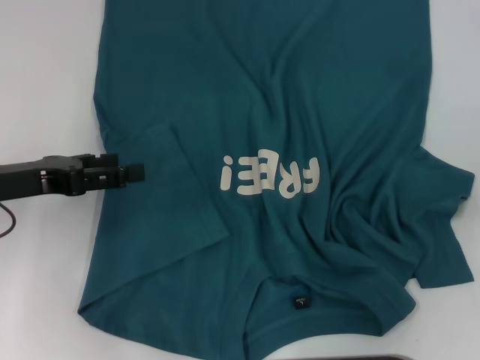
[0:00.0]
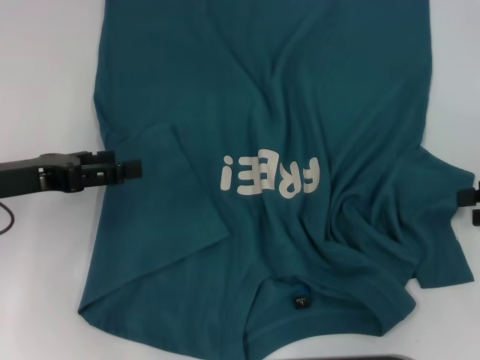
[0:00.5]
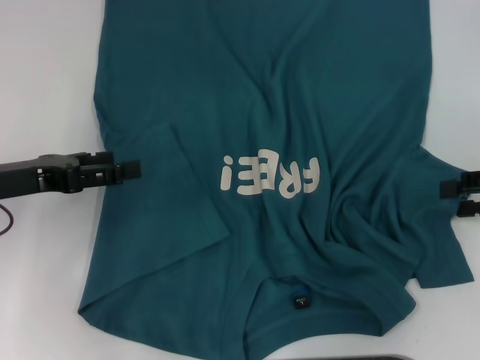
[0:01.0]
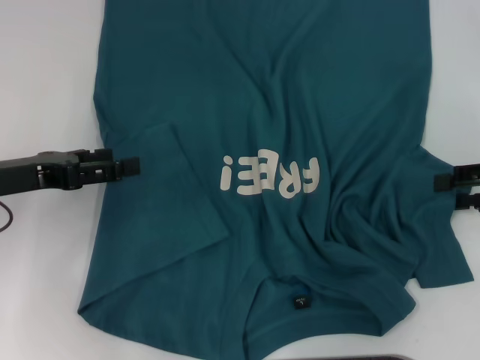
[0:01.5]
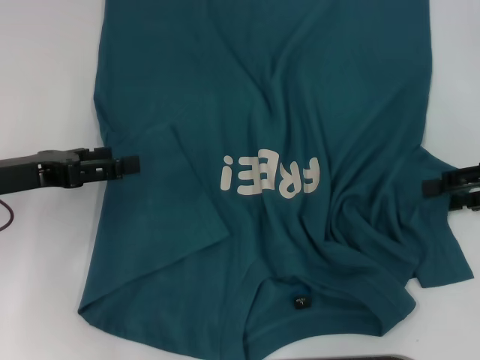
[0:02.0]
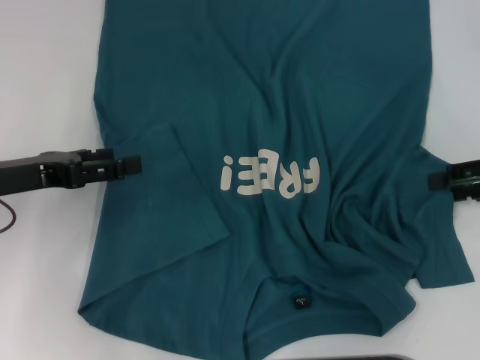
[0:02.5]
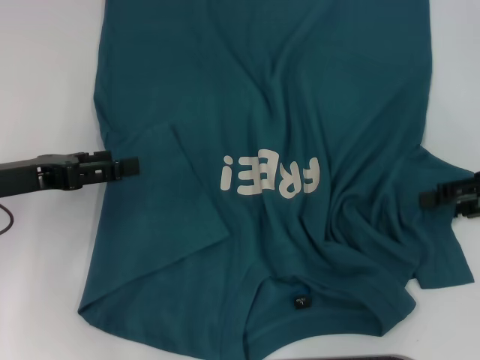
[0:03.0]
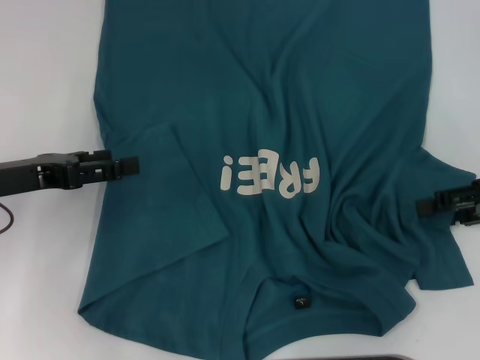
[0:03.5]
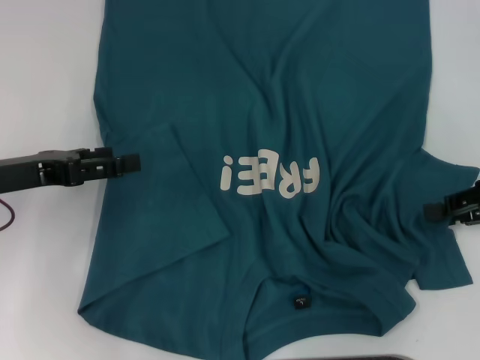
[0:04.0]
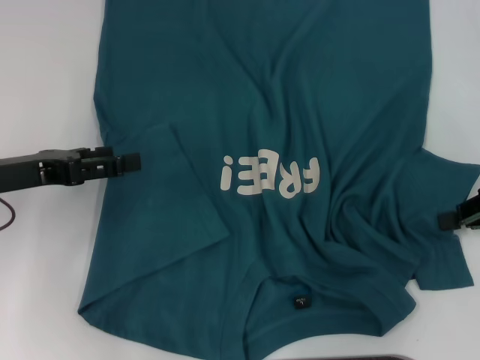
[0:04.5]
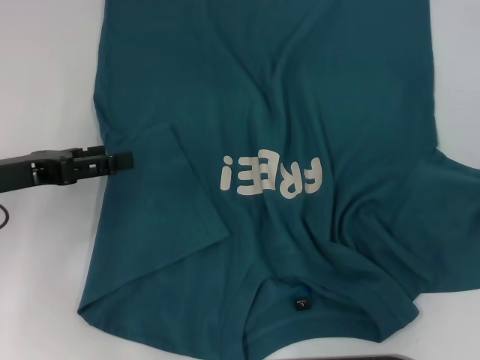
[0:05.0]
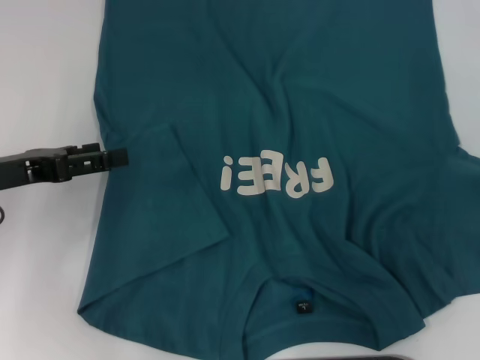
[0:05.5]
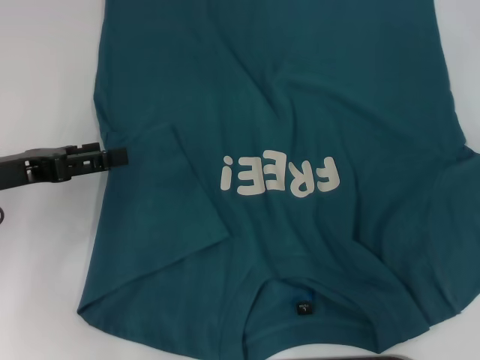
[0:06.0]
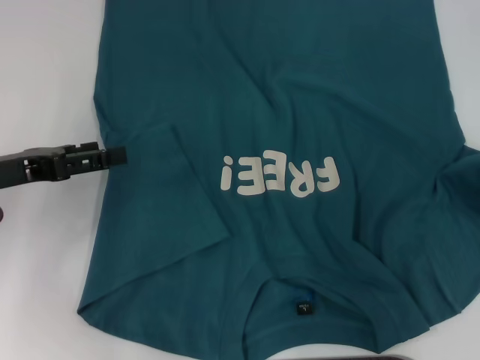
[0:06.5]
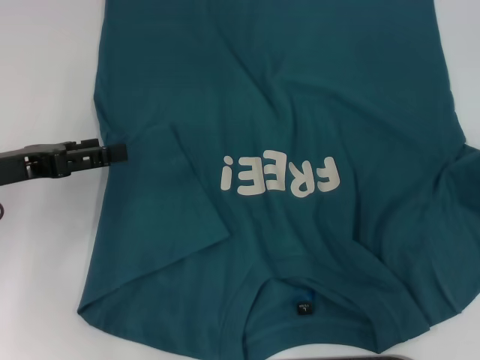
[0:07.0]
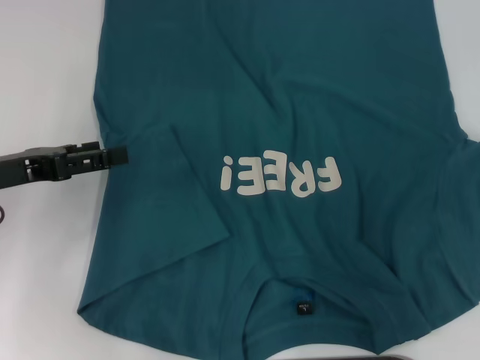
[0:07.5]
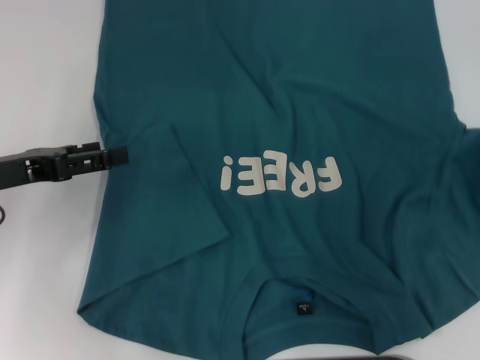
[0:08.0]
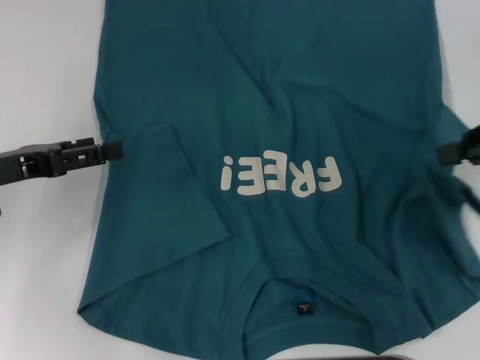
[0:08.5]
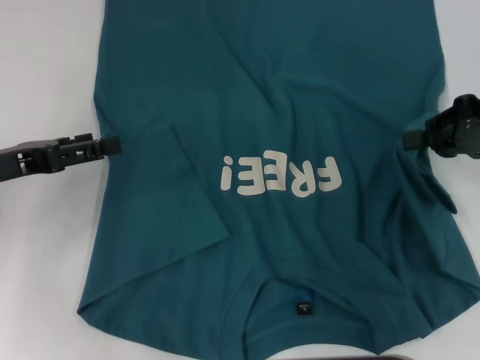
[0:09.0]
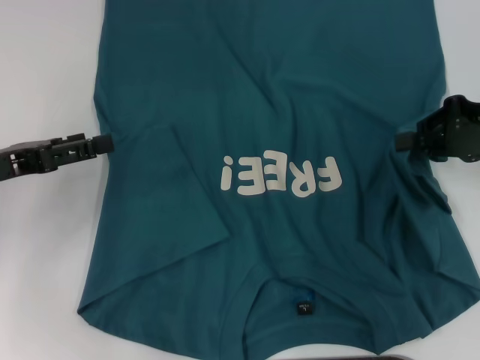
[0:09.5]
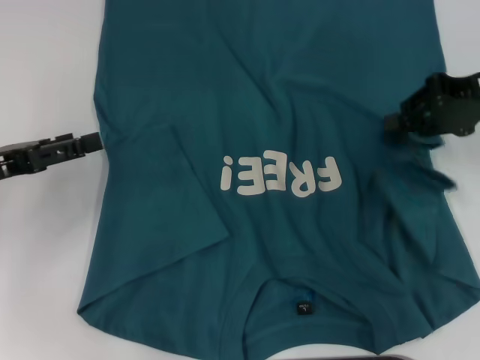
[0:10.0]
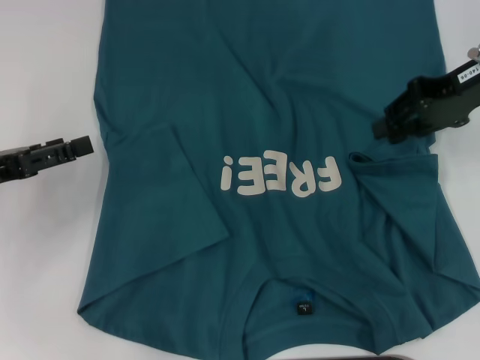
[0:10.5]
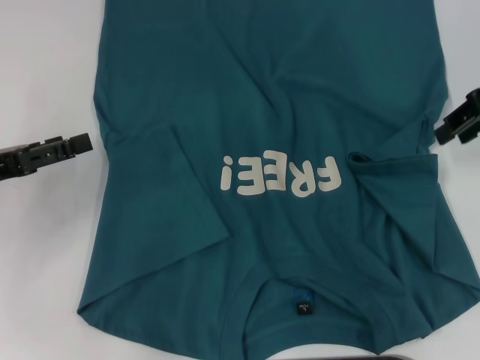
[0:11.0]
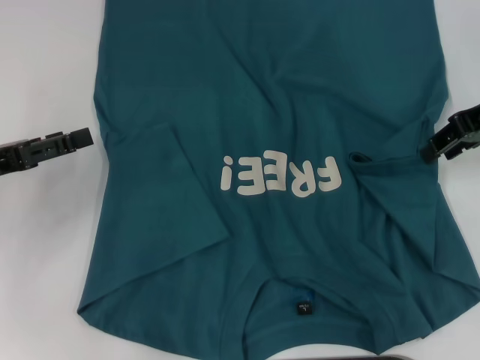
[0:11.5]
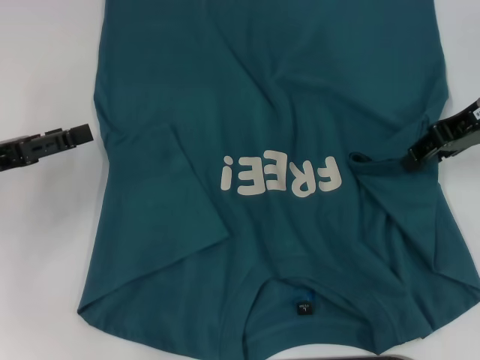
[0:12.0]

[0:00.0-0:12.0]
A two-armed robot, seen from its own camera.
0:00.0 to 0:02.0: The right gripper shifts by some 5 cm.
0:02.0 to 0:04.0: The two grippers keep their place.
0:04.0 to 0:06.0: The right gripper travels to the right and upward by roughly 10 cm, and closes.
0:06.0 to 0:08.0: The grippers make only small movements.
0:08.0 to 0:10.0: The right gripper travels to the left by some 10 cm.
0:10.0 to 0:12.0: The right gripper opens up.

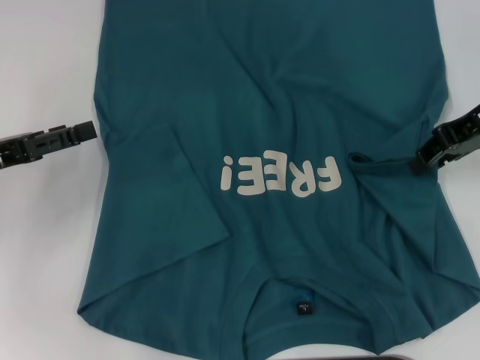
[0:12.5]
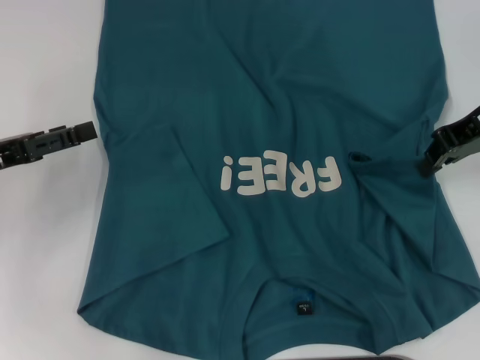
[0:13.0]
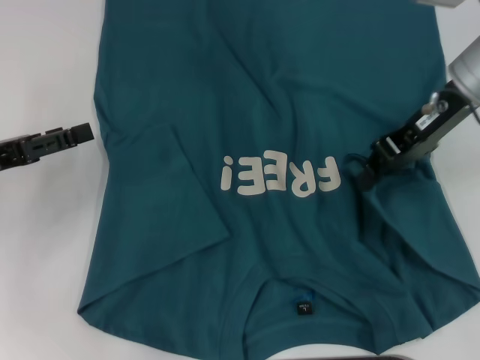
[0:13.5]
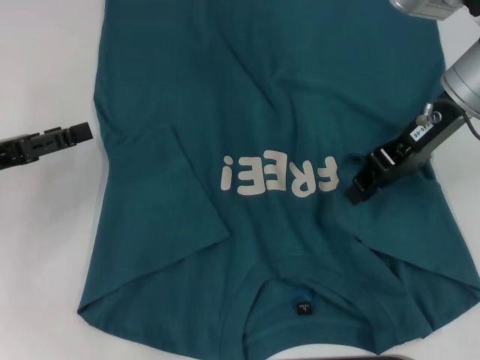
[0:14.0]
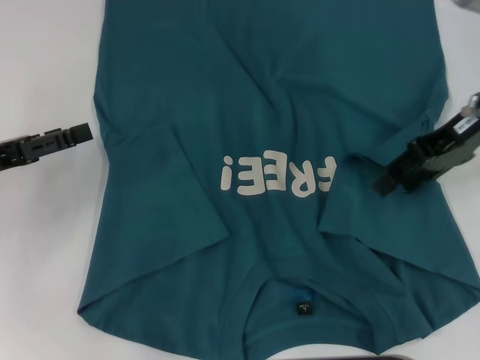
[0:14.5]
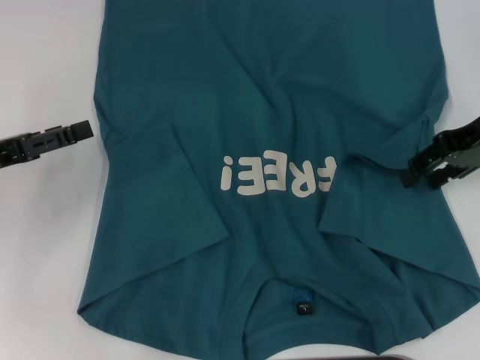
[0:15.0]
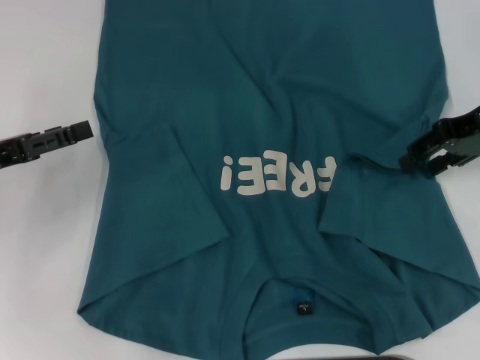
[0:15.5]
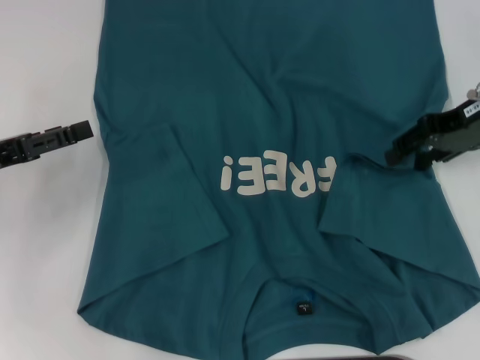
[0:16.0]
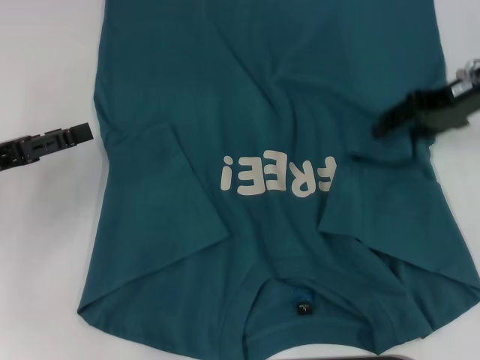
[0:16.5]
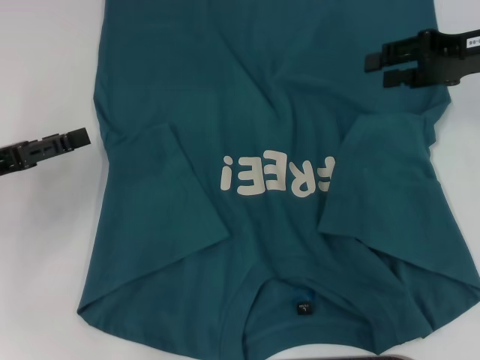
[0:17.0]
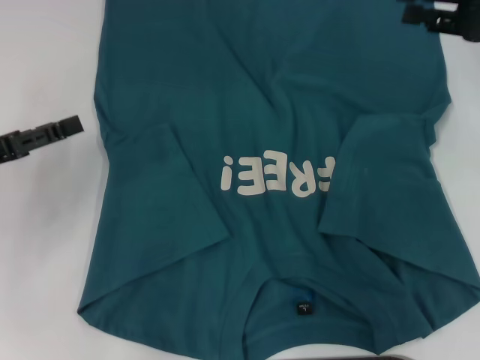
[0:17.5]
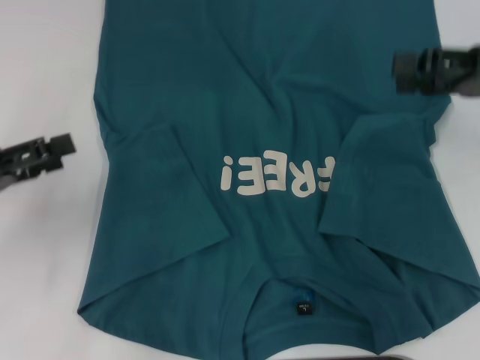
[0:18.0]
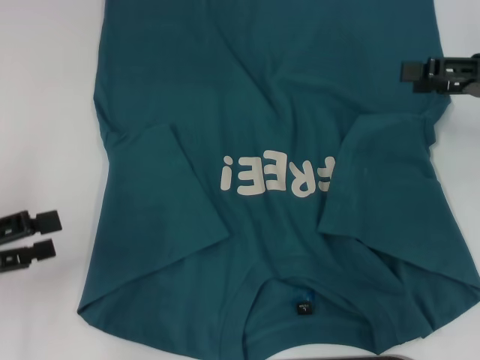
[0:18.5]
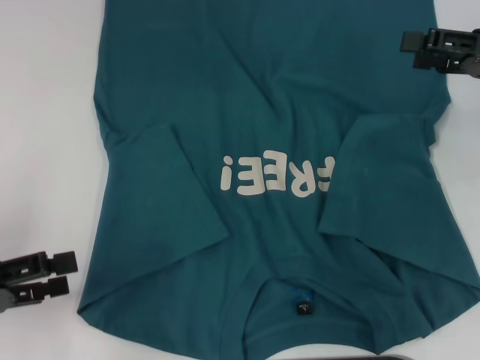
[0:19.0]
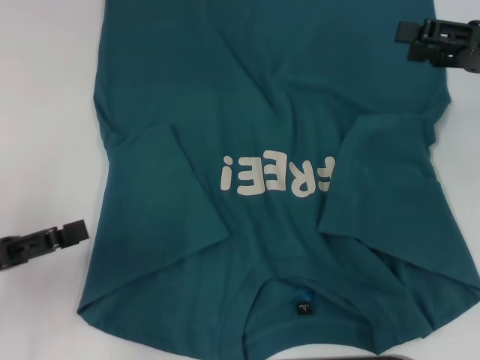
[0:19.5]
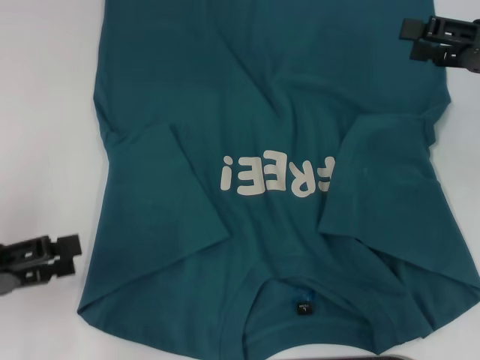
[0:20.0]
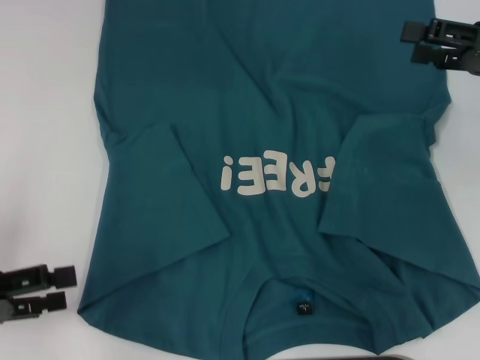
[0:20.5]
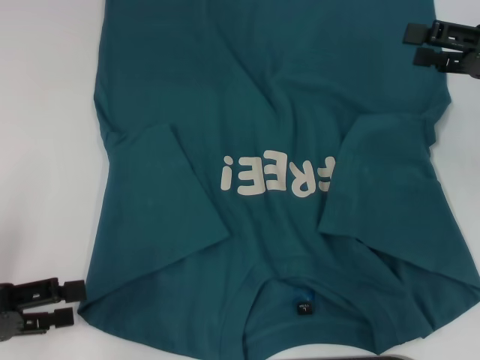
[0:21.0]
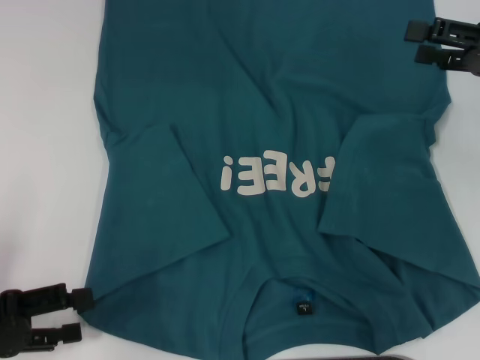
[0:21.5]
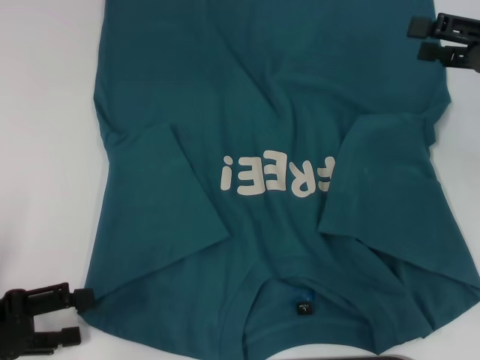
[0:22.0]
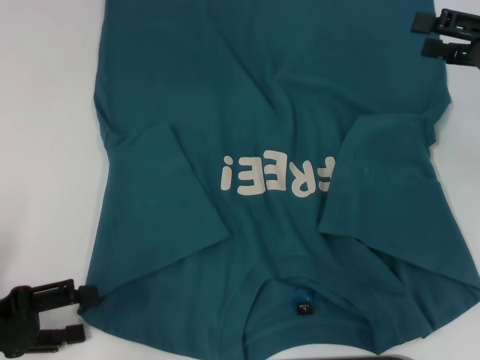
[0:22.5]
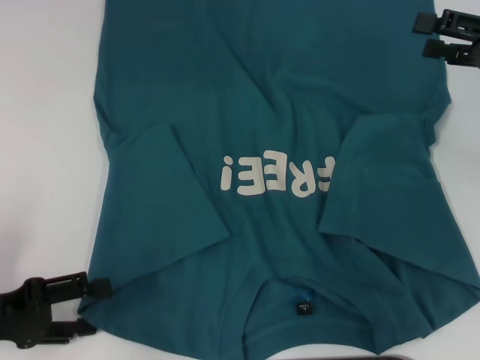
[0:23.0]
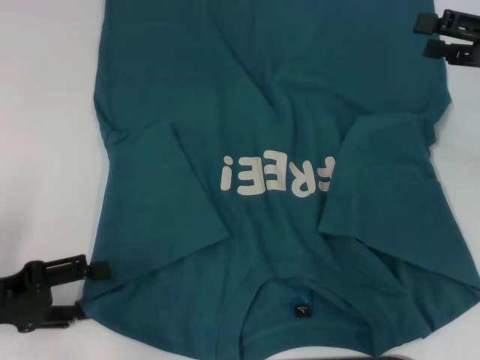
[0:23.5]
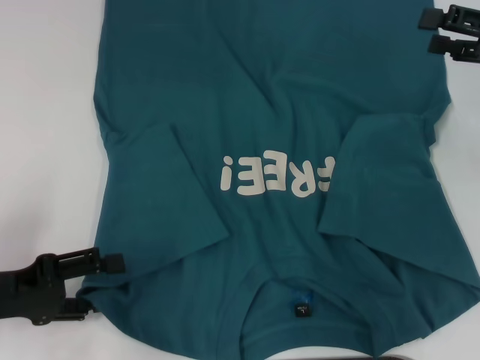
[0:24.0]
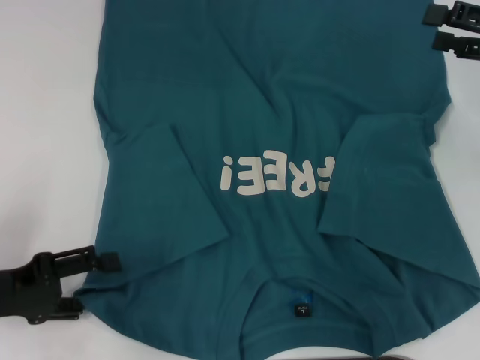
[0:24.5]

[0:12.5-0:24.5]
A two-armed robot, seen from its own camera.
Step, 0:12.5 to 0:16.5: Fold the bottom right sleeve to the right.
0:12.5 to 0:14.5: The right gripper closes, then reopens.
0:14.5 to 0:16.5: The grippers stay close to where they were, moving slightly.
0:16.5 to 0:18.5: The left gripper heads backward, covering roughly 10 cm, while the right gripper travels to the right and backward by about 10 cm.
0:18.5 to 0:20.5: The grippers stay close to where they were, moving slightly.
0:20.5 to 0:24.5: The grippers move only a little.

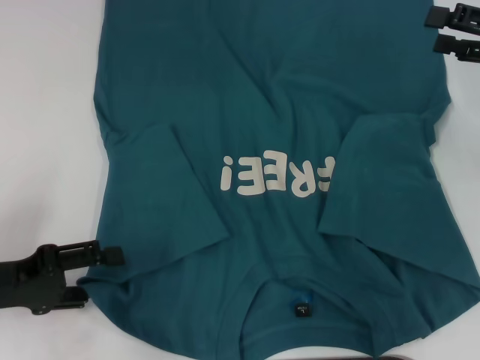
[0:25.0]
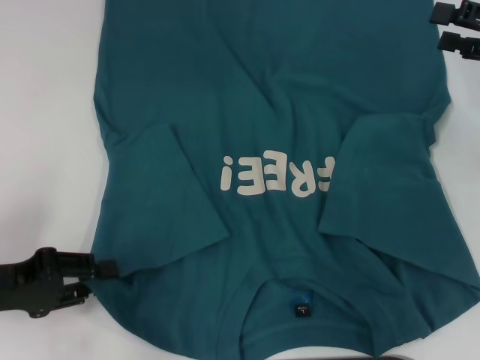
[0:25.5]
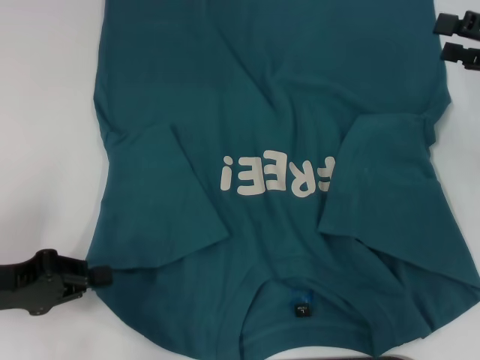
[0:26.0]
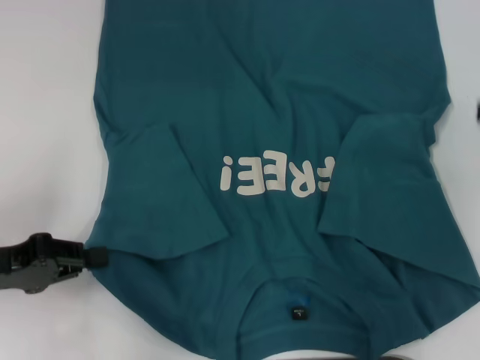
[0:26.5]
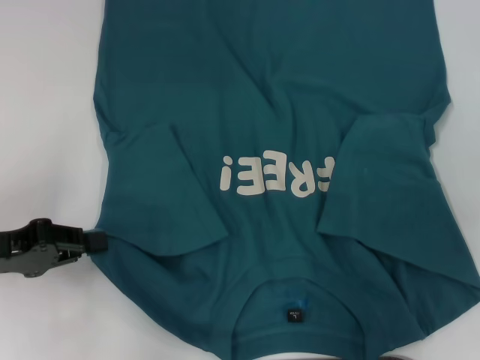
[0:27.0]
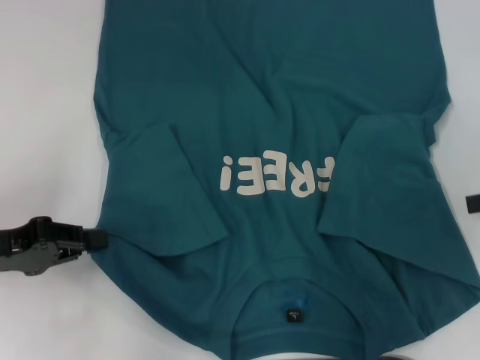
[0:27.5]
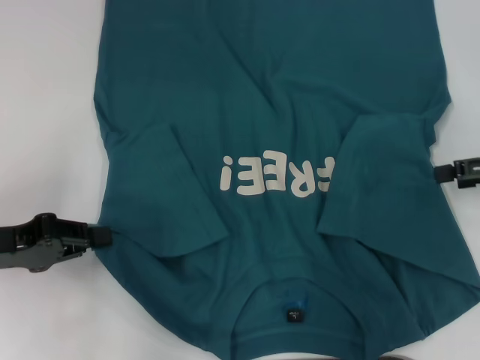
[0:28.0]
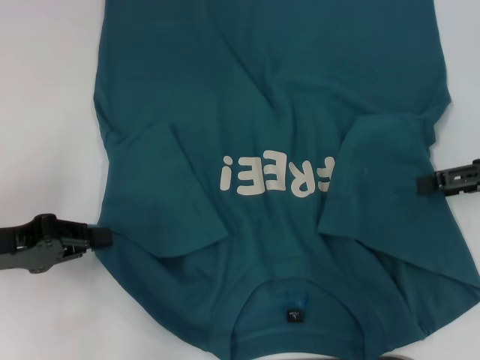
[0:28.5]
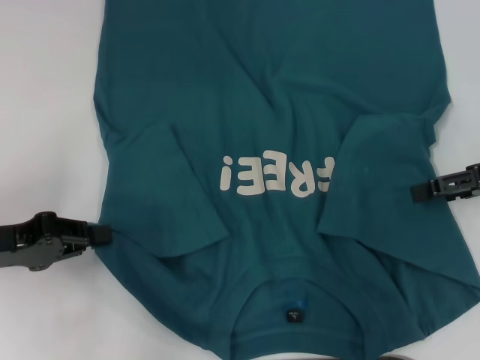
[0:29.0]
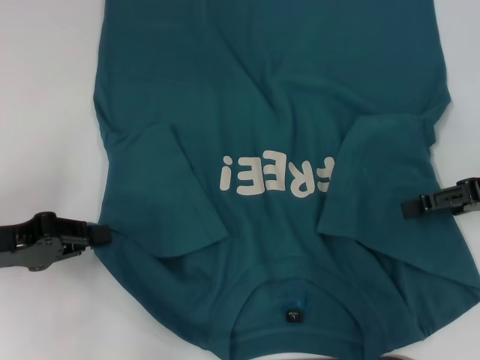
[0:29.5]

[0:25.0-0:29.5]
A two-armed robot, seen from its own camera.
0:25.0 to 0:27.0: The right gripper is displaced backward and to the right by some 10 cm. Meanwhile the left gripper closes its fingers.
0:27.0 to 0:29.5: The right gripper is displaced to the left by about 5 cm.
